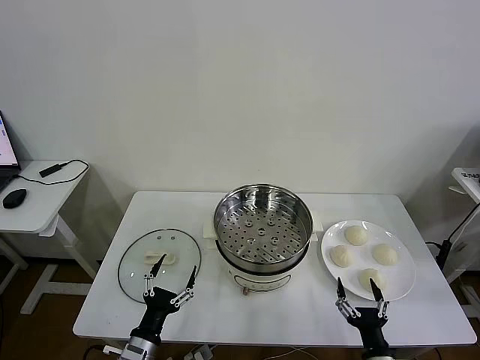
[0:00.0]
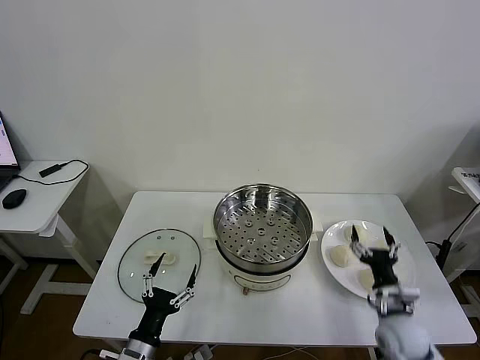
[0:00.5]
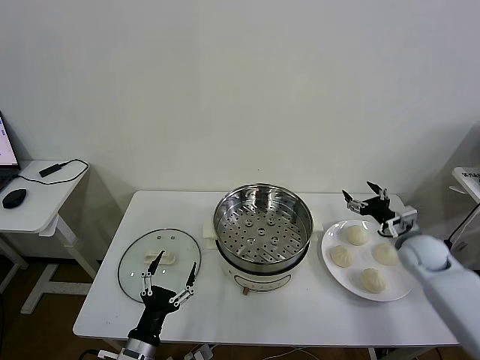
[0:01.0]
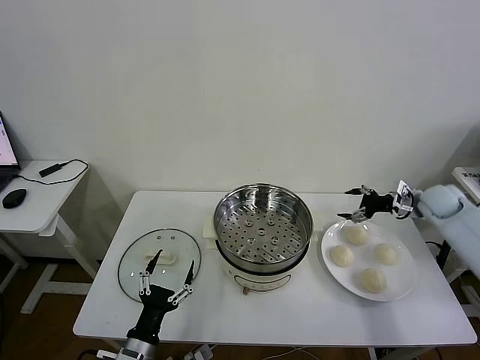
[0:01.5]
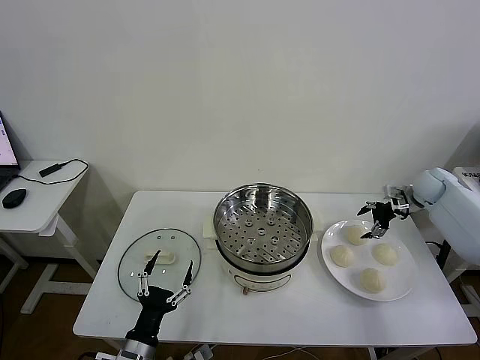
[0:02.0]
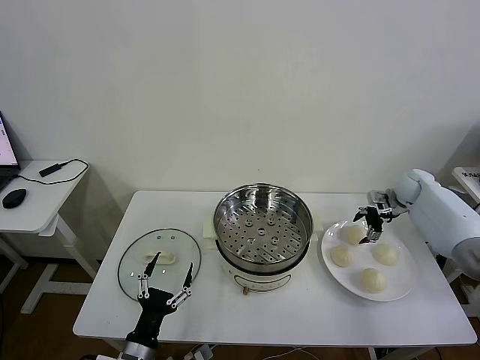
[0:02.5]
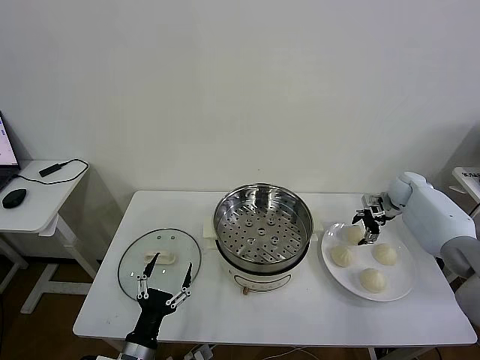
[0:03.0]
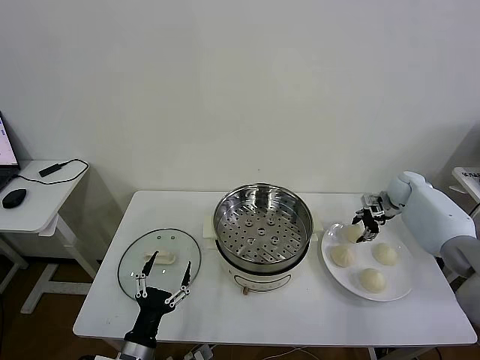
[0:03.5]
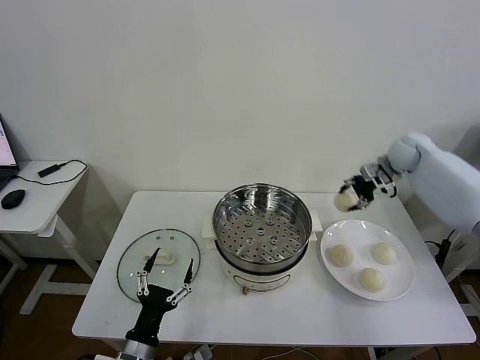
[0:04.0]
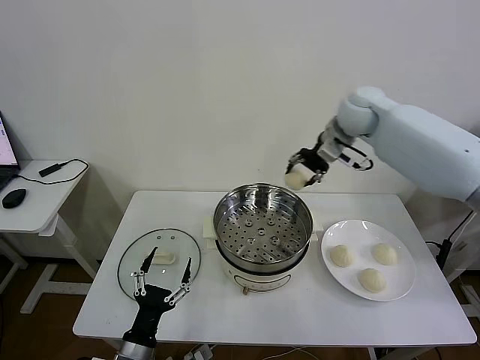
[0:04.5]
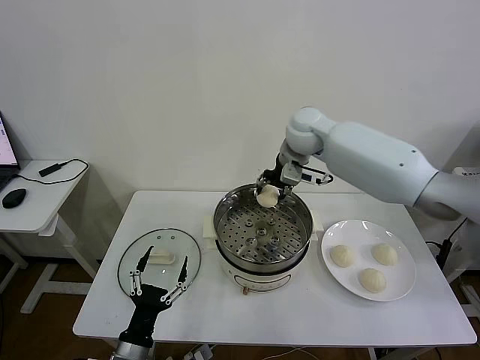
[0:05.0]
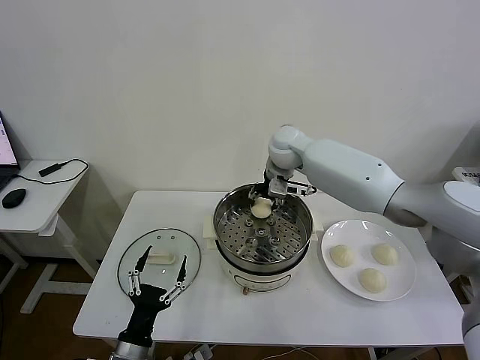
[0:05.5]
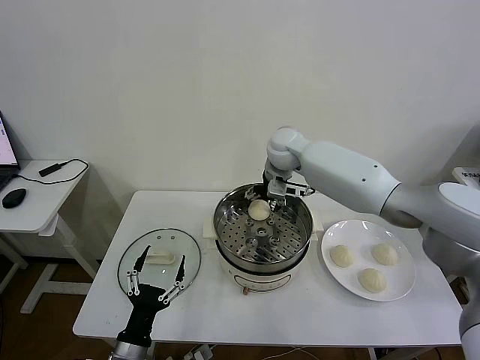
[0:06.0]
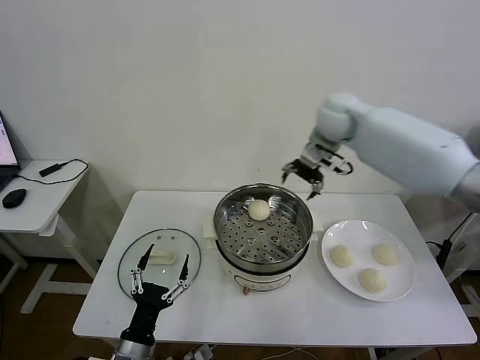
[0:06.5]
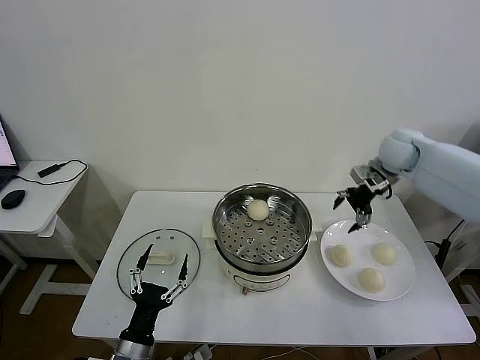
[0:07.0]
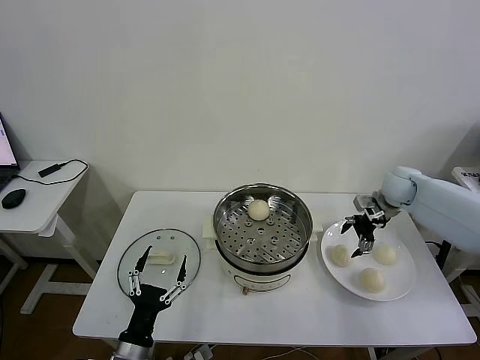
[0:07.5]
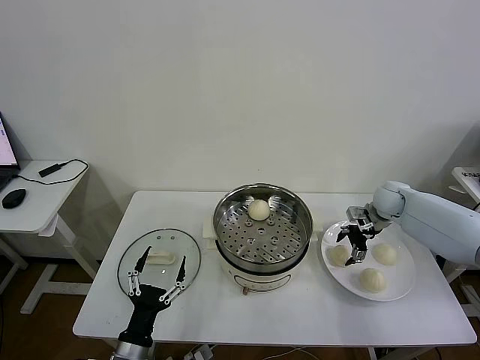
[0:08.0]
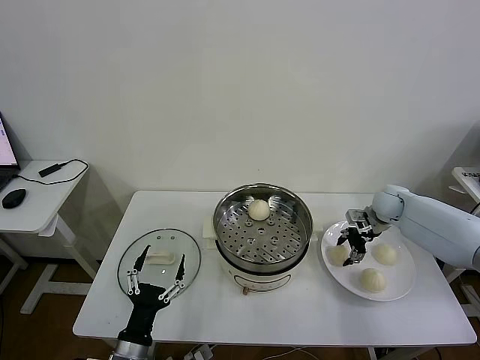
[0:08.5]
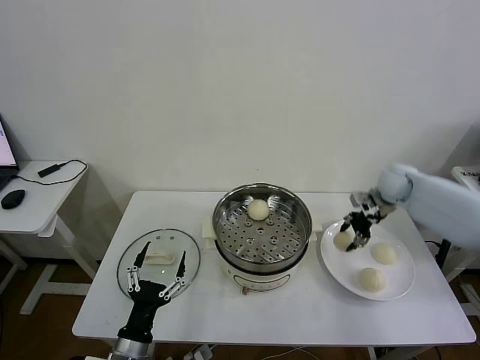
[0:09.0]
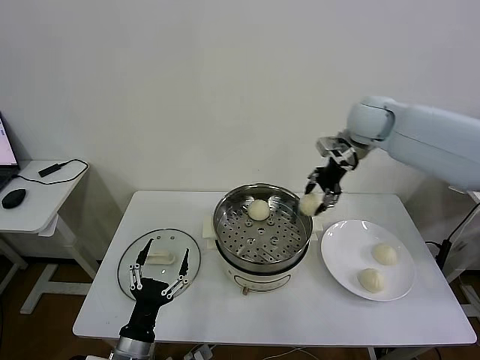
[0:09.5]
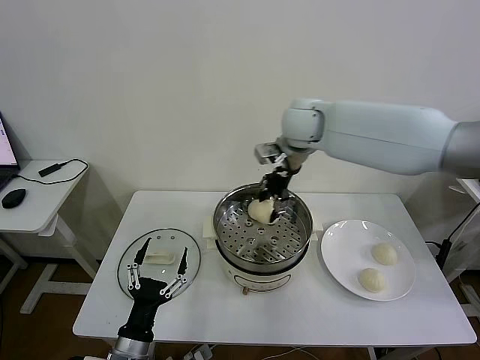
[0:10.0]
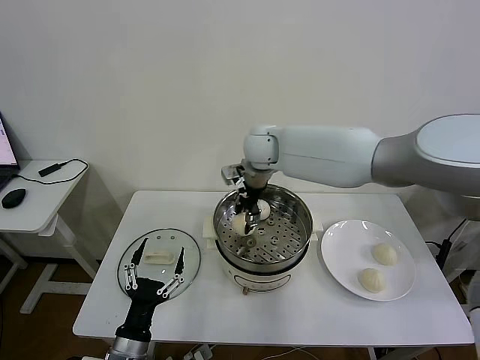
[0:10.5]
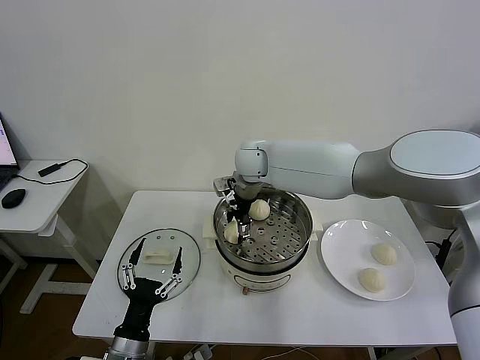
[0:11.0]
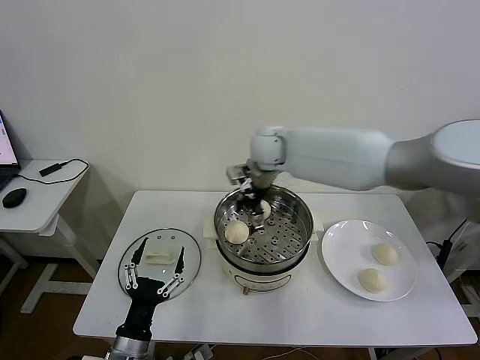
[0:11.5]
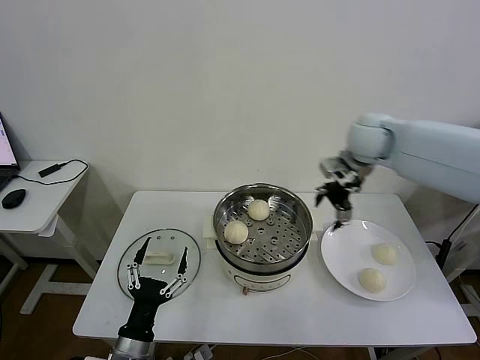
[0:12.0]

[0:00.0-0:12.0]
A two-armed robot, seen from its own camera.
Task of the whole recording: take steamed baozi put them in steamer then cover it.
Step, 0:00.0 to 0:03.0: Grasp the baozi in the plate with right gripper.
Step, 0:03.5 to 0:05.5: Place the baozi on the steamer with right gripper.
Step, 0:06.5 to 0:08.5: Grasp the baozi in the plate with right gripper.
Step, 0:09.0 to 0:11.0: Place the baozi on the steamer with right gripper.
0:02.0 to 0:04.0: The right gripper goes about 20 cm upward and to the left, and closes its fingers.
0:04.0 to 0:06.0: The right gripper shifts approximately 25 cm to the left, and opens up.
0:06.0 to 0:08.0: The right gripper moves to the right and downward, some 30 cm.
0:08.0 to 0:10.0: The right gripper heads to the left and upward, covering about 35 cm, and closes up.
0:10.0 to 0:12.0: The right gripper goes some 20 cm to the right, and opens its fingers.

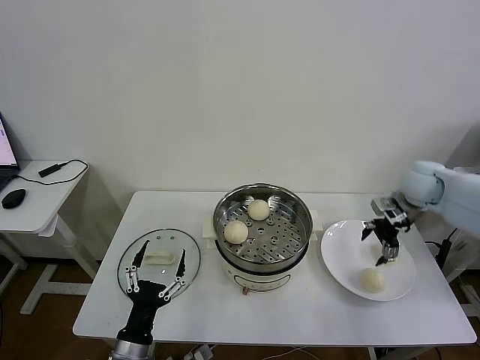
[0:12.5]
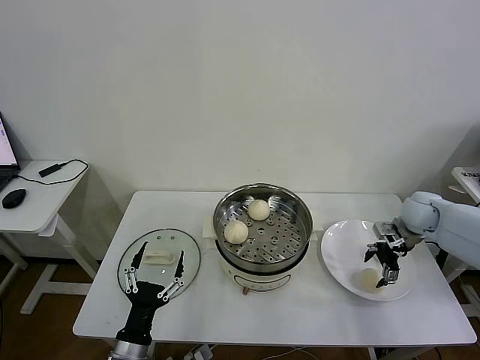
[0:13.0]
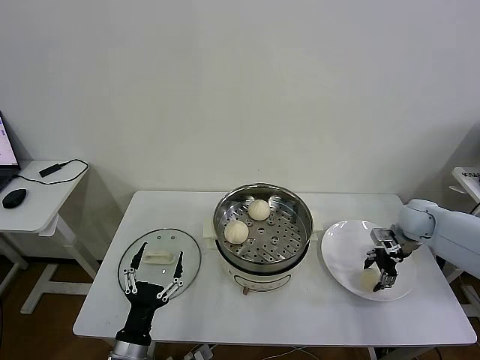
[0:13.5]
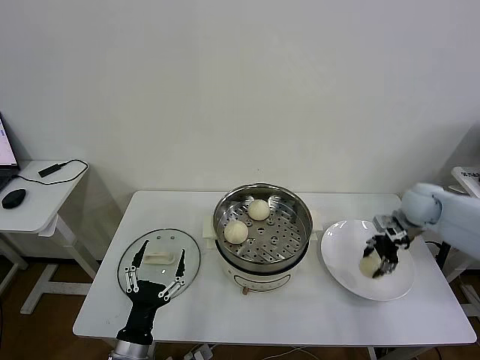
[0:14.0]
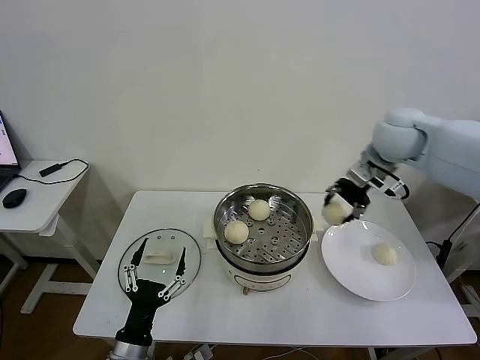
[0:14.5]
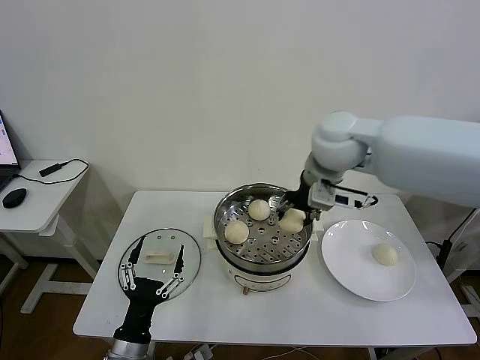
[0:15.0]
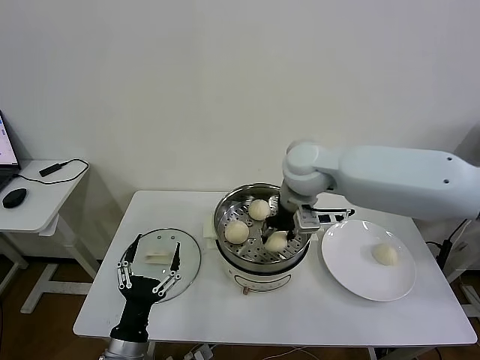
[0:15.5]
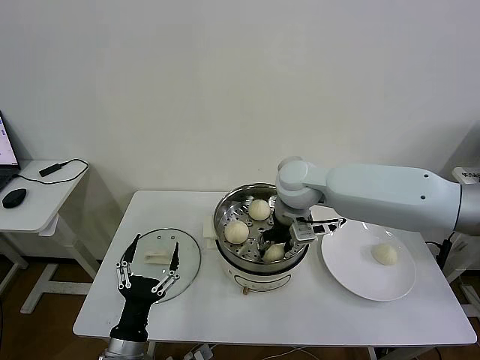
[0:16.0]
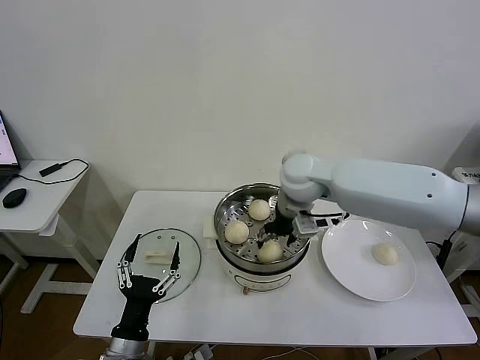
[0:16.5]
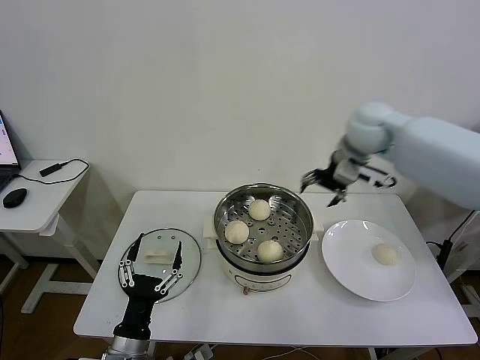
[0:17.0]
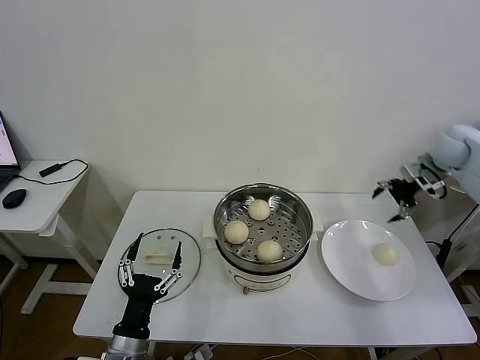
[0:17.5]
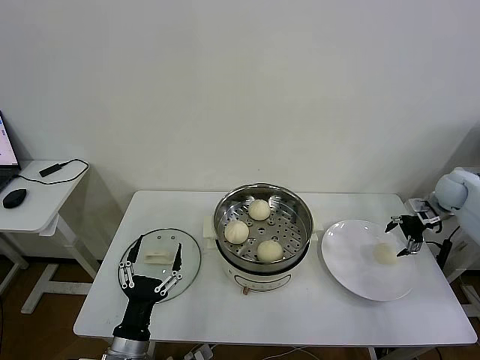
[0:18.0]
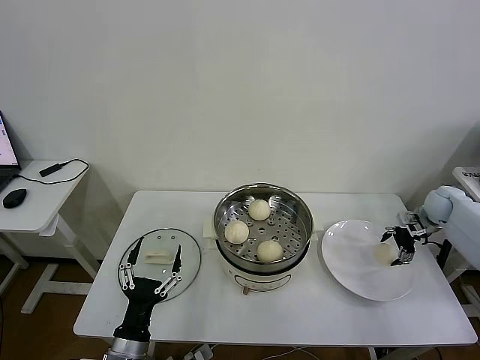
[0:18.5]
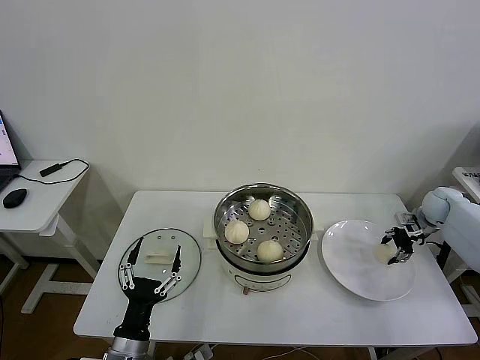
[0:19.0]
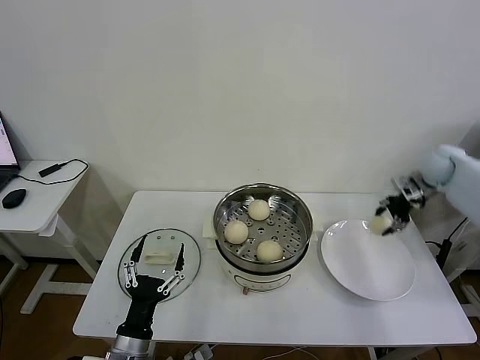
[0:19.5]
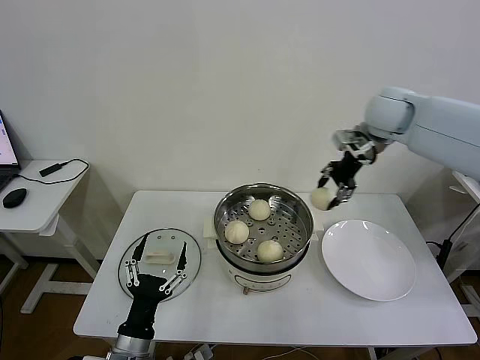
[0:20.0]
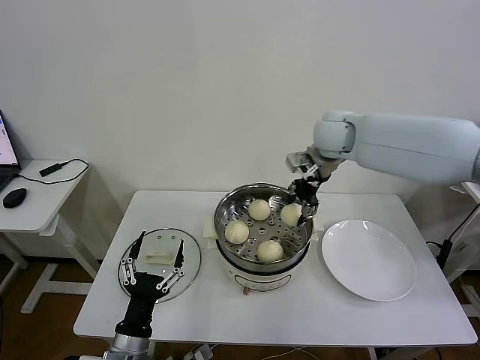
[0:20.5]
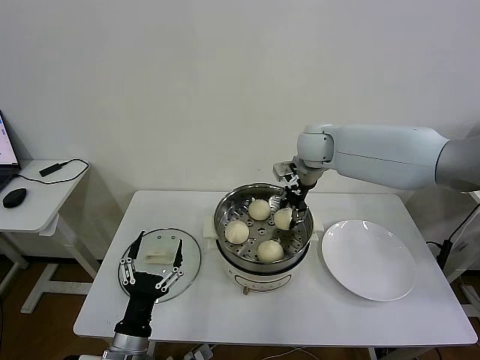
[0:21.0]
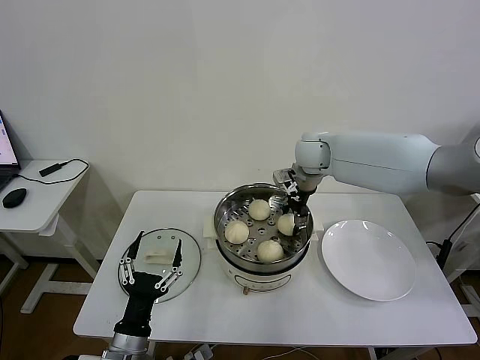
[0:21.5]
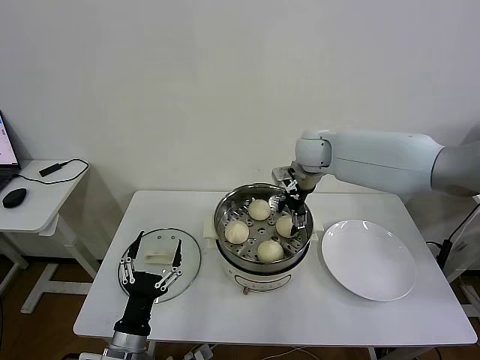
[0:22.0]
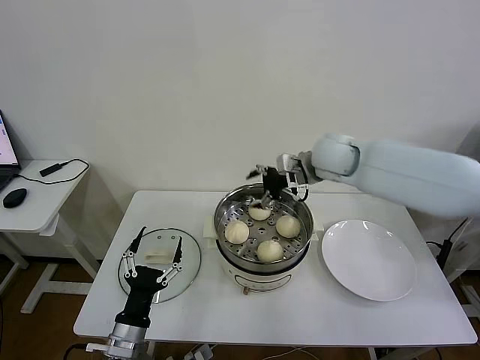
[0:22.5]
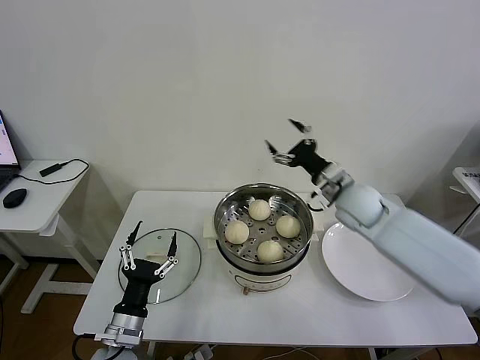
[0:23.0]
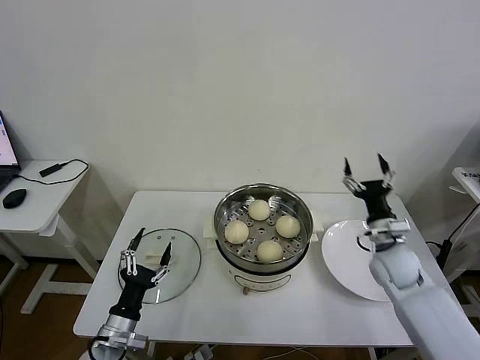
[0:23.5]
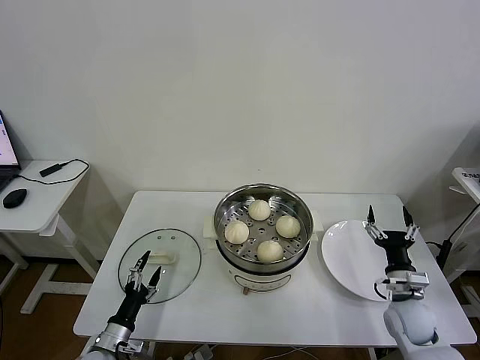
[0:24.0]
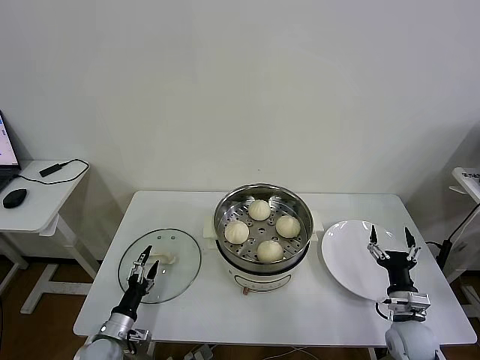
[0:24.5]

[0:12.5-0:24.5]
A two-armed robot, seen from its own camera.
Task of the whole recording: take steamed baozi put them in steamer then cover it.
Step, 0:14.0 to 0:16.0: Place the baozi on the steamer with right gripper.
Step, 0:16.5 to 0:19.0: Grasp the baozi in the plate with right gripper.
Step, 0:19.5 to 0:21.5: Place the baozi on the steamer with right gripper.
0:12.5 to 0:14.5: The right gripper heads upward and to the left, covering approximately 20 cm, and closes.
0:14.5 to 0:16.5: The right gripper heads to the left and downward, covering roughly 15 cm, and opens up.
0:16.5 to 0:18.5: The right gripper travels to the right by about 40 cm.
0:18.5 to 0:20.5: The right gripper travels to the left and upward by approximately 40 cm, and closes its fingers.
0:20.5 to 0:22.5: The right gripper shifts by approximately 5 cm, and opens its fingers.
0:22.5 to 0:24.5: The right gripper shifts approximately 50 cm downward, backward and to the right. The left gripper heads downward, to the left and forward, covering roughly 20 cm.

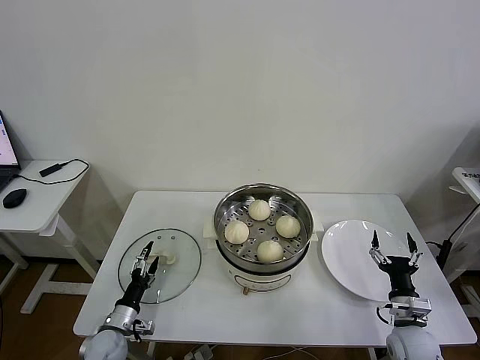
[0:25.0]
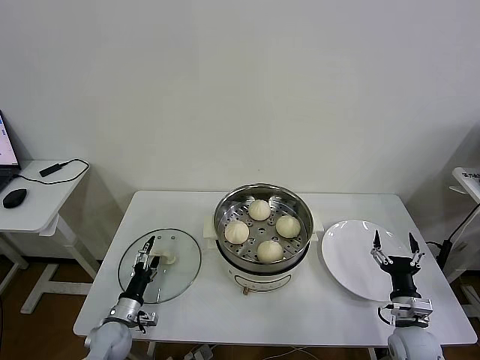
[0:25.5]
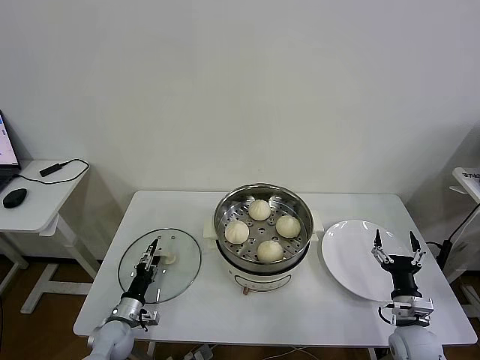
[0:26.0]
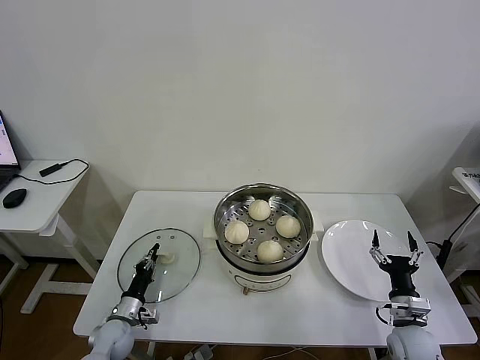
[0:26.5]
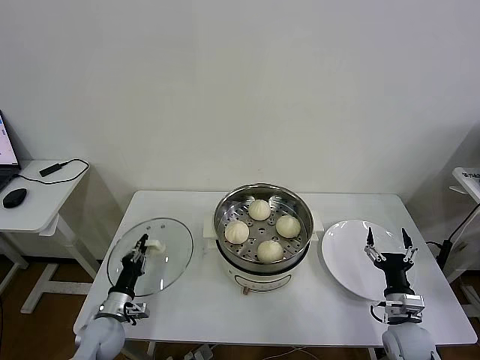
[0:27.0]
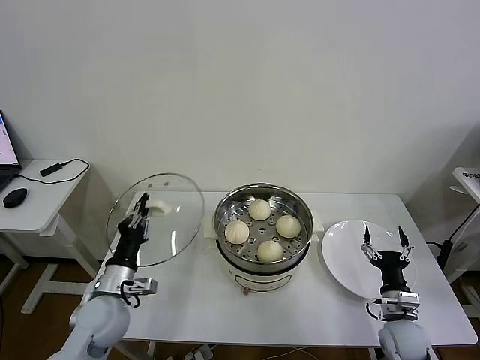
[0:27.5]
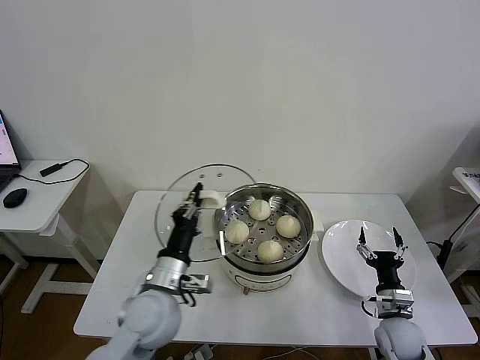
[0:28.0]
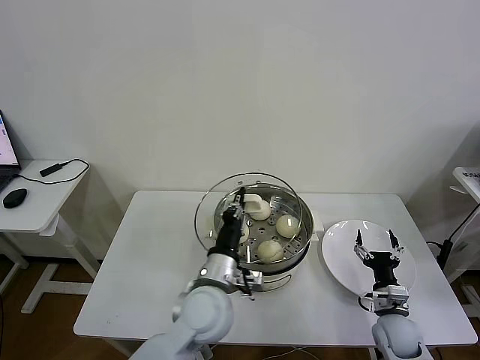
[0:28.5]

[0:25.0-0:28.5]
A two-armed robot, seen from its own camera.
Task of the whole recording: take steamed baozi put them in steamer then cover it.
0:25.0 to 0:27.0: The left gripper closes up.
0:27.0 to 0:28.5: The left gripper is displaced to the right and upward by about 35 cm.
